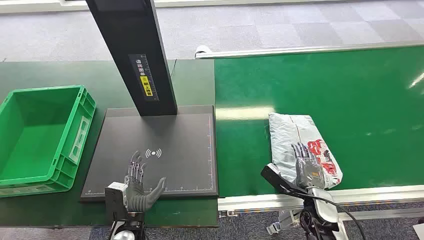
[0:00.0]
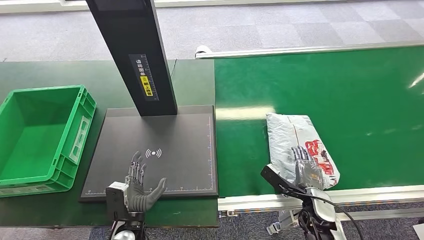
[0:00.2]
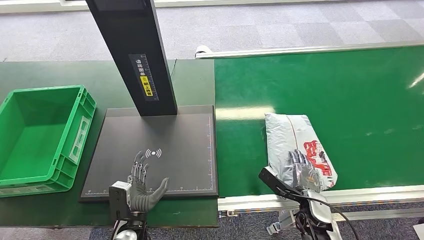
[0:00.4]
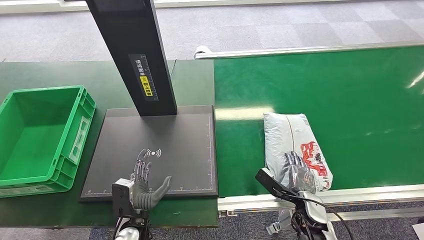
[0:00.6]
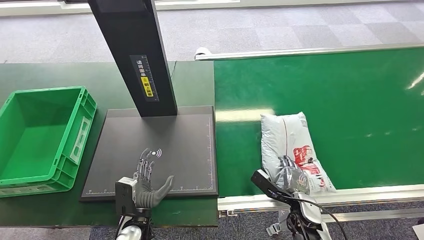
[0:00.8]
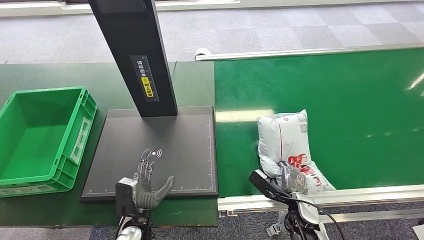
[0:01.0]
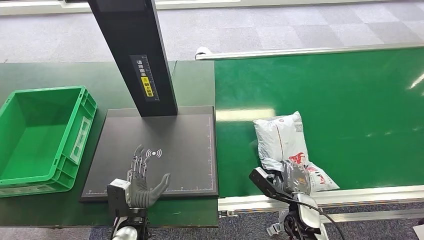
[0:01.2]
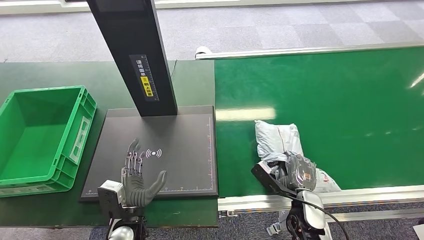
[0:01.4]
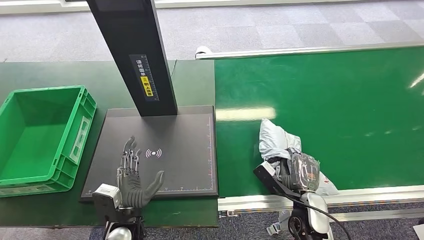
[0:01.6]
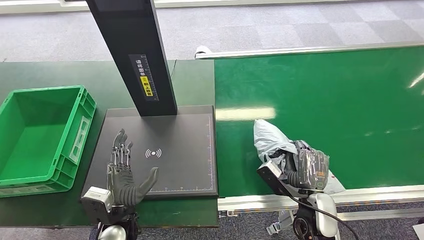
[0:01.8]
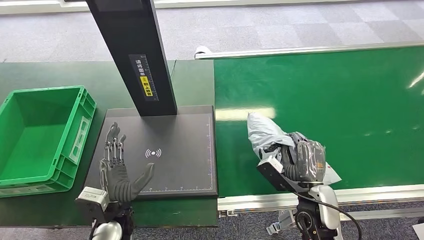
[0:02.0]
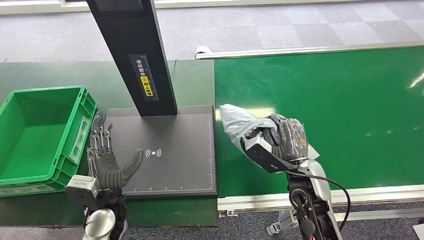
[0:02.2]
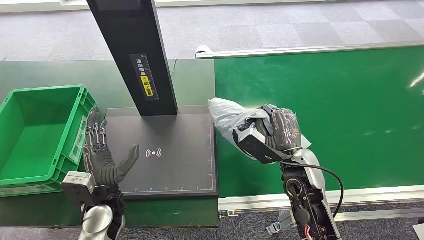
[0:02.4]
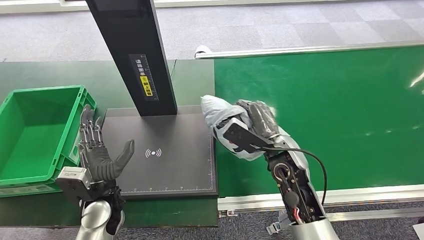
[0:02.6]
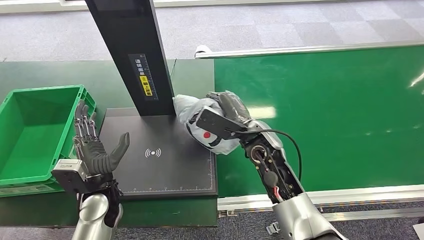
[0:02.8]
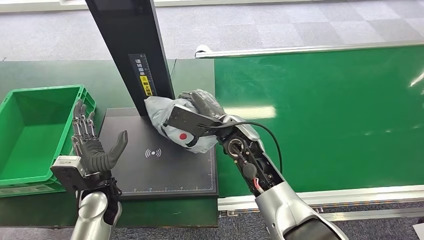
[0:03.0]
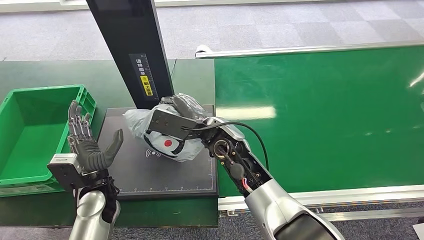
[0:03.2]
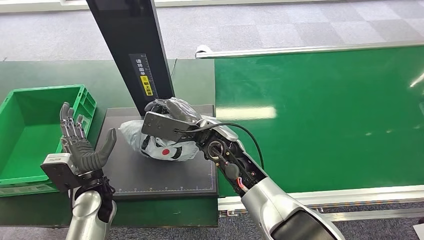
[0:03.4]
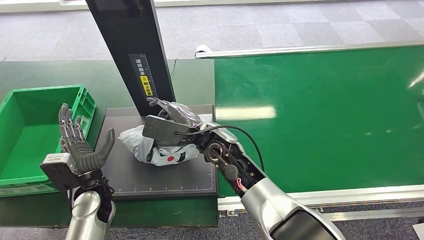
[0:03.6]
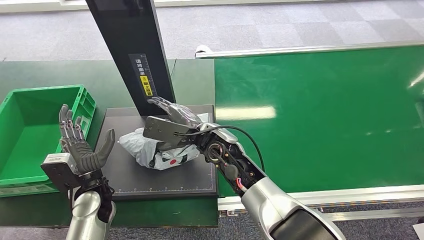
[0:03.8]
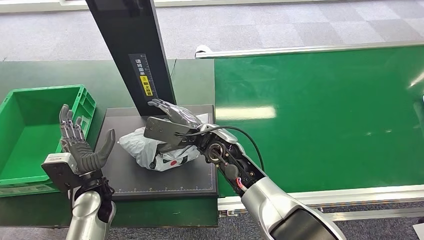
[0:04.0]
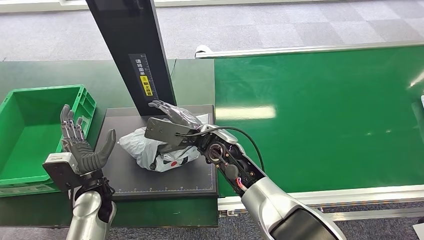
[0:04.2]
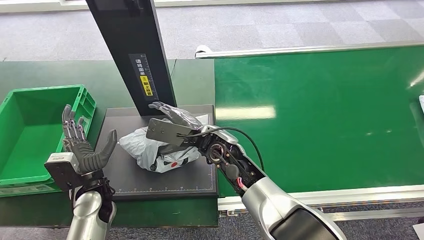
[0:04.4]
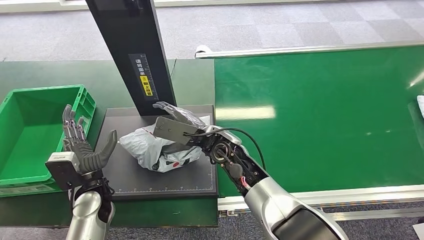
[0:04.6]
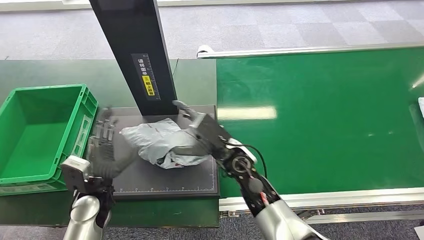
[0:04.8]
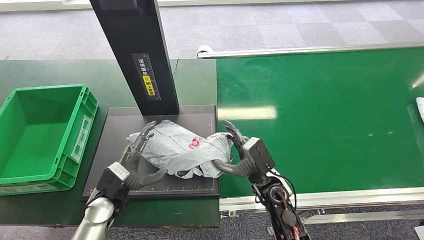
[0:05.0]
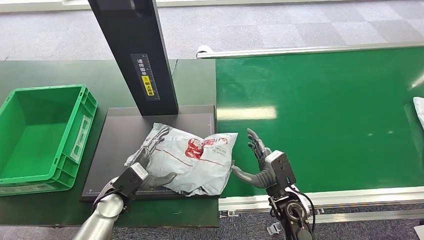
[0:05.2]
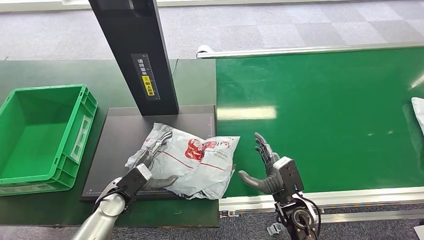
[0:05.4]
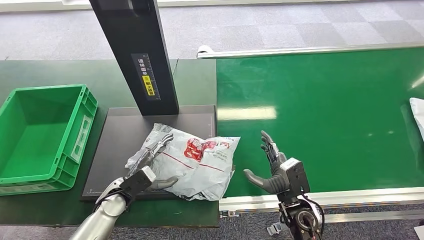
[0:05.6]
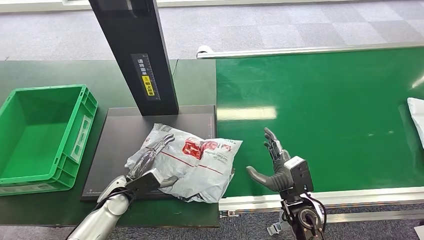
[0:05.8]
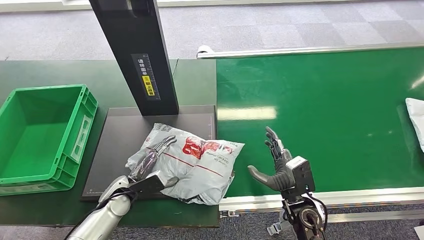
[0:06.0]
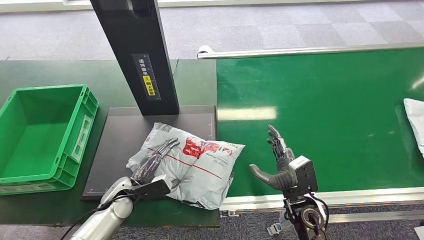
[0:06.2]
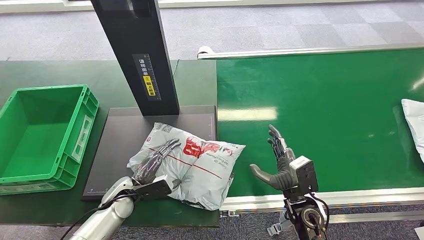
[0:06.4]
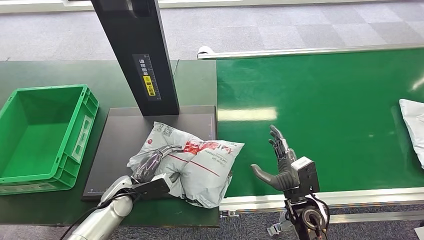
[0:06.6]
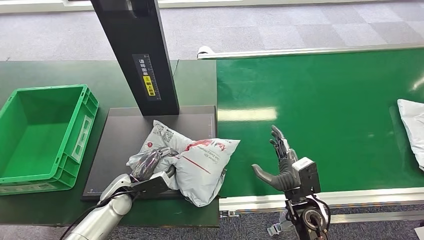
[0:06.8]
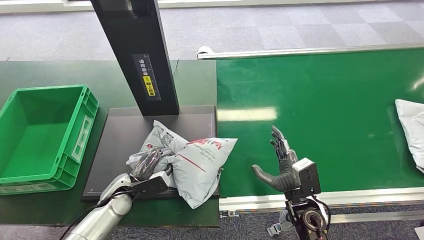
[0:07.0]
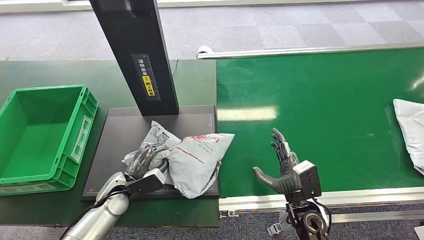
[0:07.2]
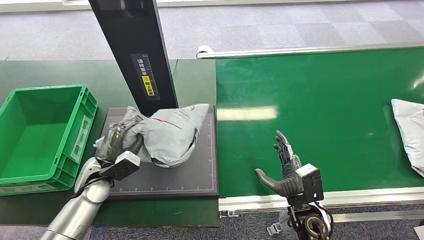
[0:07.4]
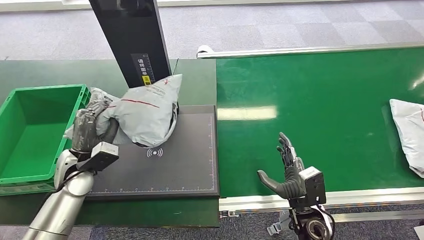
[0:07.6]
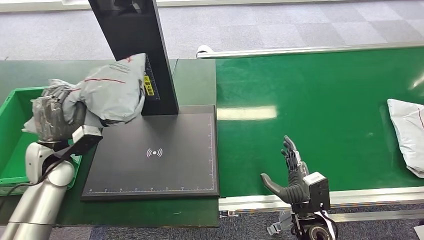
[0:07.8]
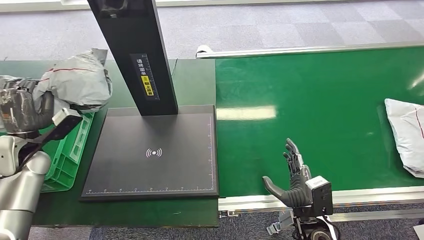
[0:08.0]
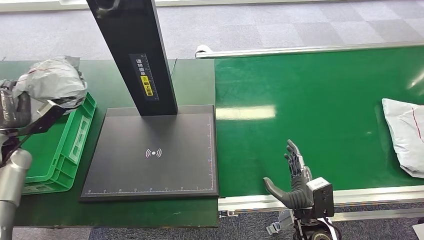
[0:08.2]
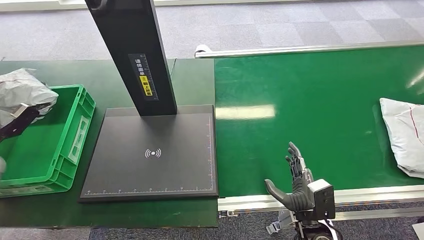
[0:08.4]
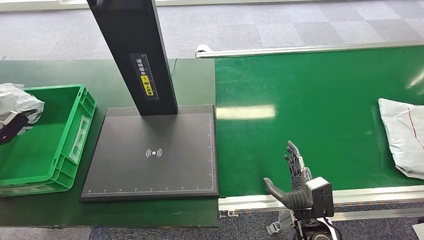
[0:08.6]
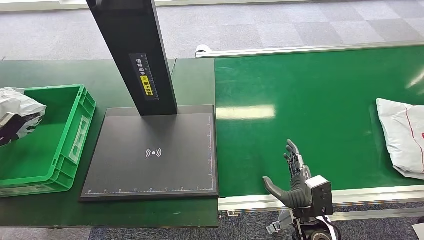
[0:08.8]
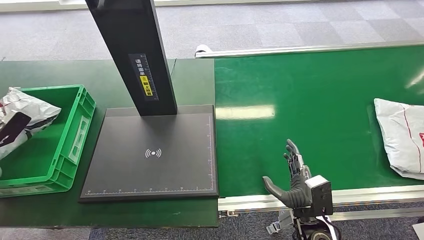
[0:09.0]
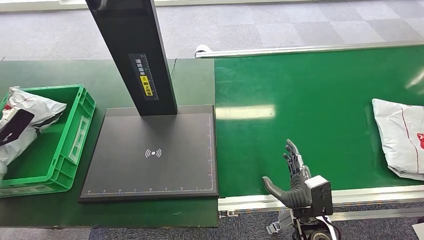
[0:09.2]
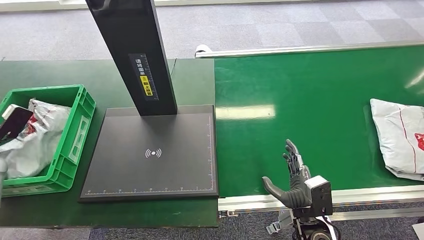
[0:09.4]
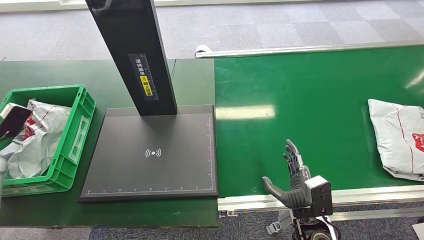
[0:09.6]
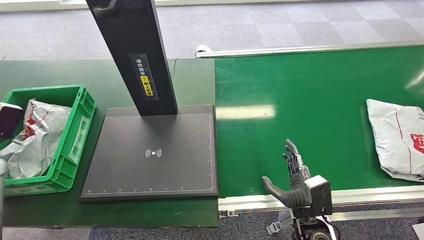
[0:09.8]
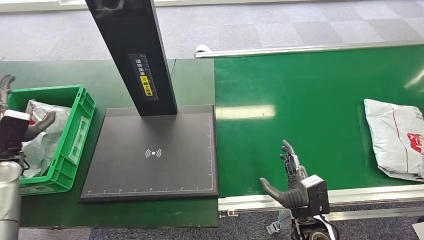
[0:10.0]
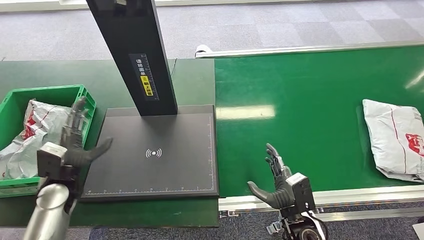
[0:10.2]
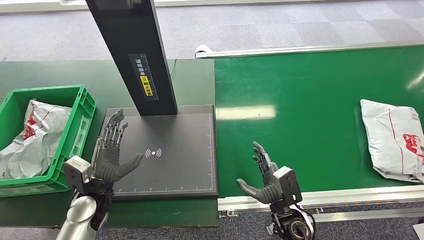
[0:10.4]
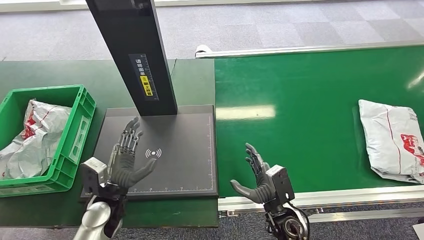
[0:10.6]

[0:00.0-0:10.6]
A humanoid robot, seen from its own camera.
Step, 0:00.0 to 0:02.4: Pick up the package from the conveyor belt.
Step, 0:02.6 to 0:05.0: Place the package onto the inbound machine.
Step, 0:05.2 to 0:07.8: Pick up the package from the inbound machine.
Step, 0:08.0 to 0:10.6: Place the package into the parcel locker.
0:03.0 to 0:04.6: The hands make only small movements.
0:09.0 to 0:10.6: The right hand is displaced to the left by some 5 cm; the left hand is displaced to the right by roughly 35 cm.

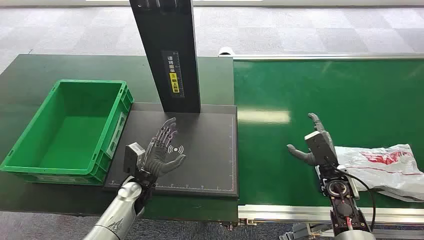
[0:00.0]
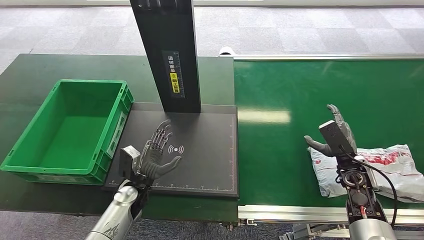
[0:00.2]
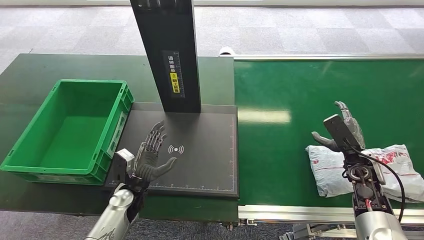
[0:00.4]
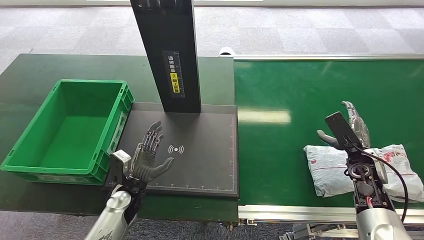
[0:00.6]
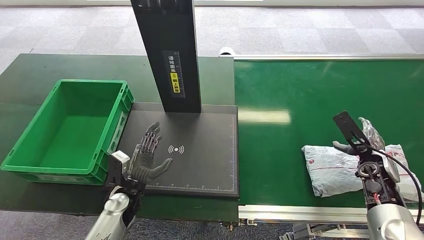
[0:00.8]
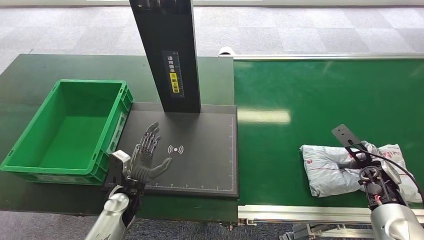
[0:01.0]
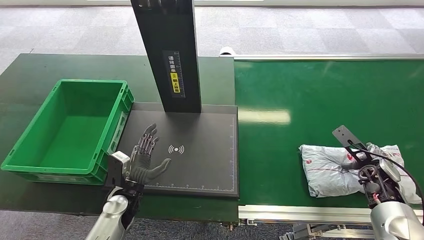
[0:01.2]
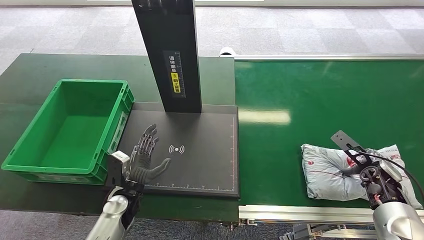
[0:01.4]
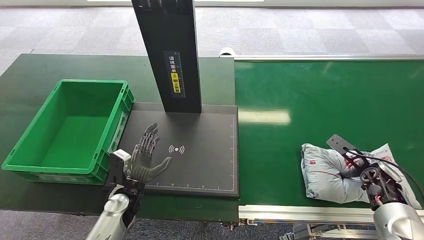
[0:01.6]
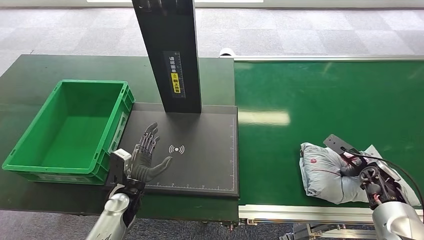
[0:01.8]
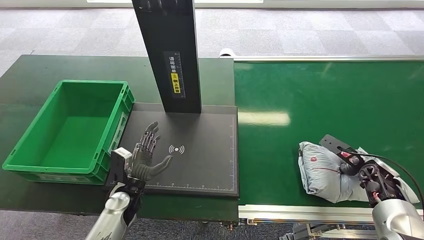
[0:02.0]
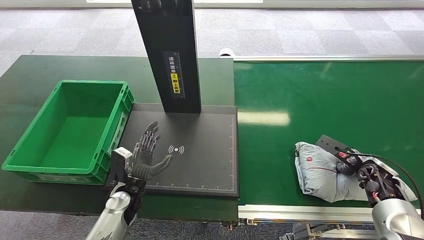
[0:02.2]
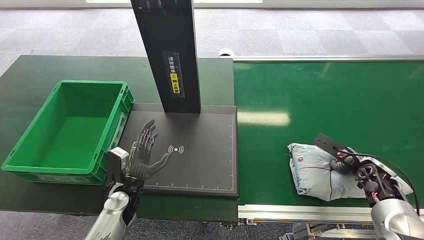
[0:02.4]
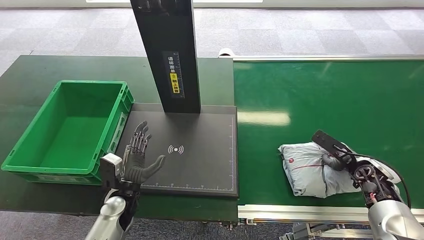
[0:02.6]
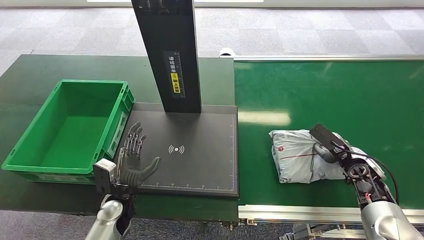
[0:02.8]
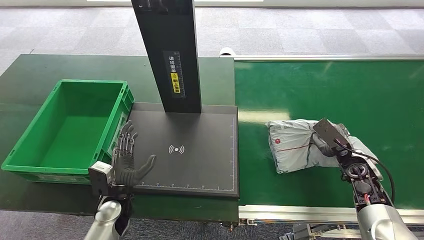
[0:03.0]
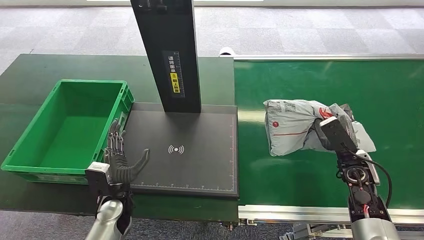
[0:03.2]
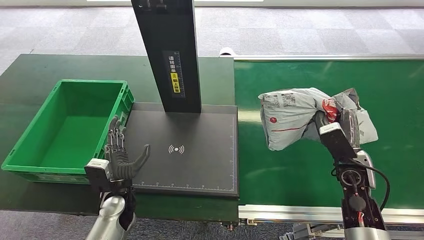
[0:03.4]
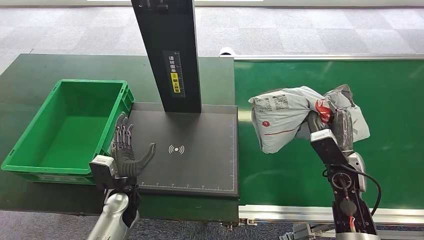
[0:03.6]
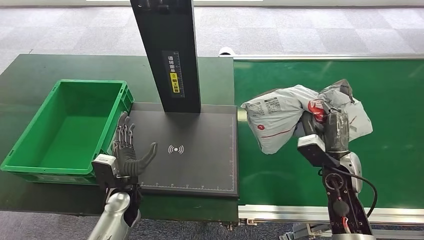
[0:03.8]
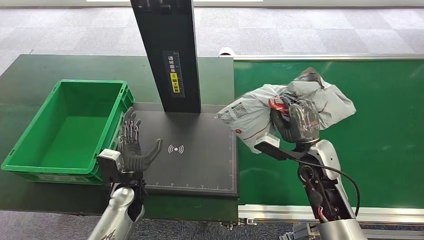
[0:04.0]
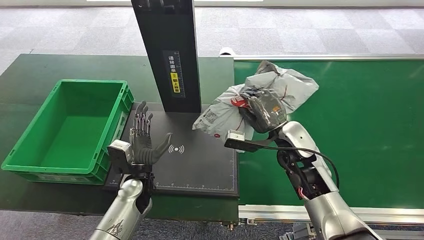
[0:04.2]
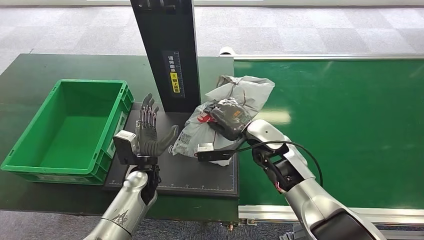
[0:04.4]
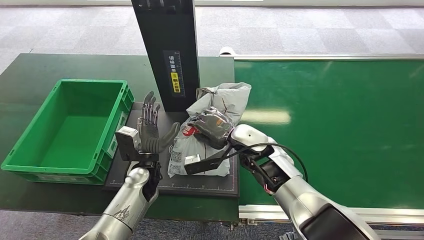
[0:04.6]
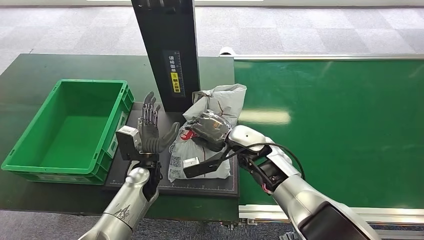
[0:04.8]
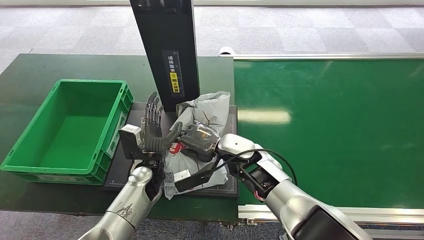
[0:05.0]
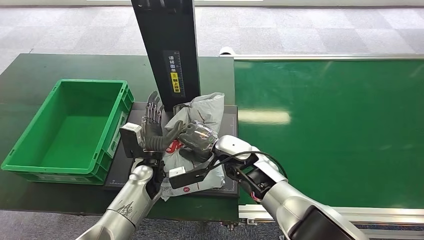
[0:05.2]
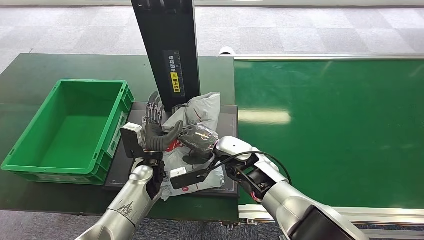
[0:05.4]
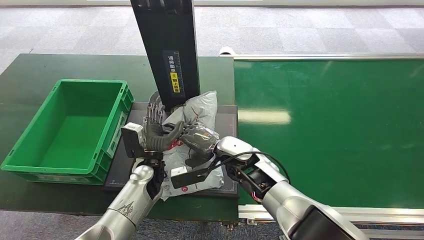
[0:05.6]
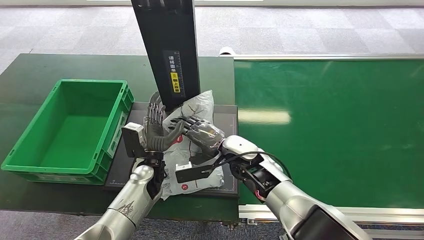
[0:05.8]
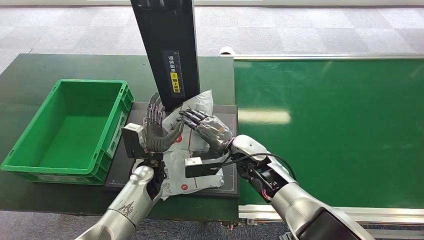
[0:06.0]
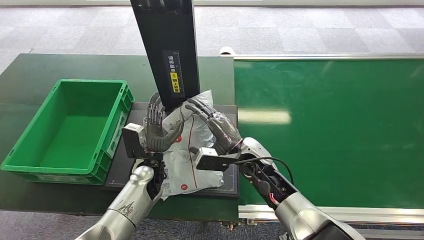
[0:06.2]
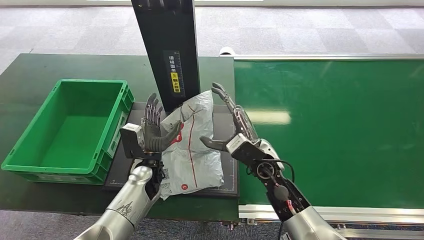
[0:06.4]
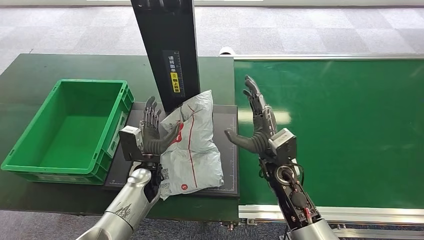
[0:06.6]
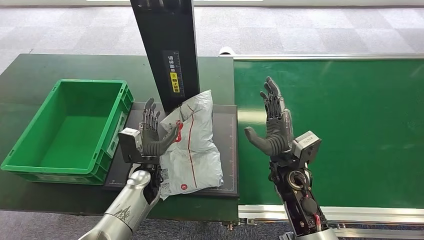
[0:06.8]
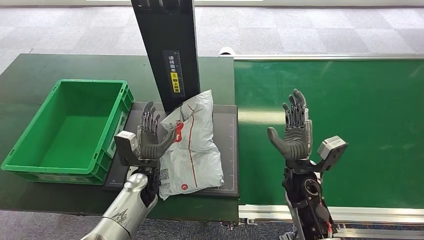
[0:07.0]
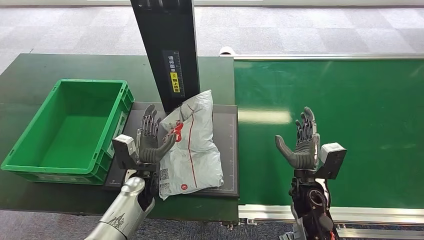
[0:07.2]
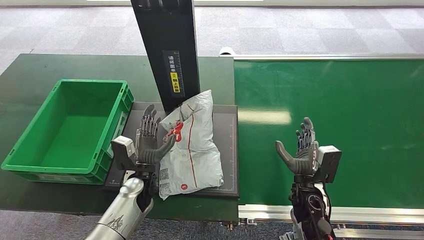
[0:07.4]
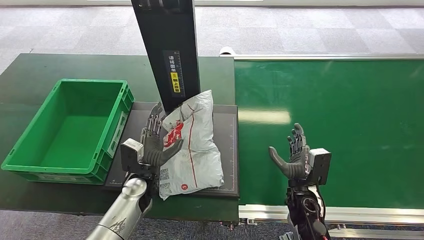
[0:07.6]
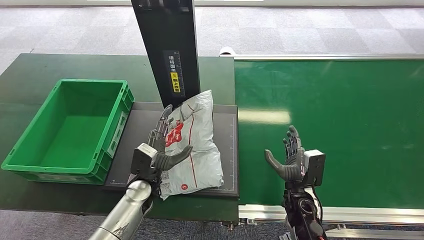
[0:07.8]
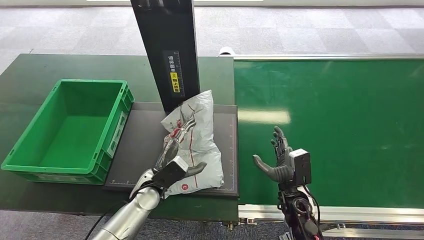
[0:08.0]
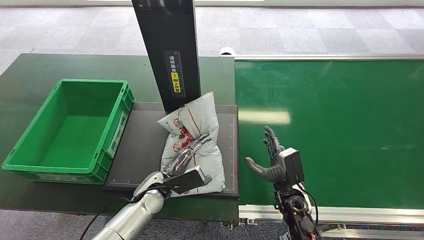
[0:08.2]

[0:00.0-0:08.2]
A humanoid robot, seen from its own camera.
Step, 0:00.0 to 0:03.4: Pick up the package from the conveyor belt.
Step, 0:03.6 to 0:06.8: Place the package onto the inbound machine.
0:01.6 to 0:03.2: The right hand moves to the left, about 10 cm.
0:05.0 to 0:06.6: The right hand heads to the right, covering roughly 5 cm.
0:06.6 to 0:08.2: The right hand goes approximately 15 cm downward, to the right and backward.
